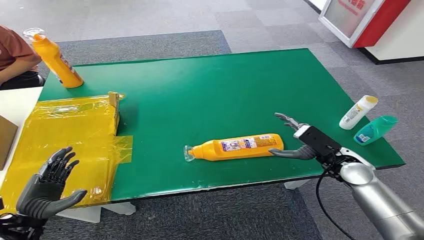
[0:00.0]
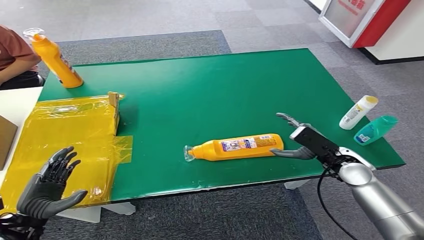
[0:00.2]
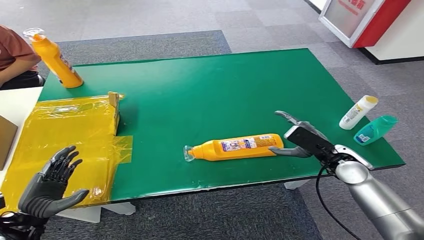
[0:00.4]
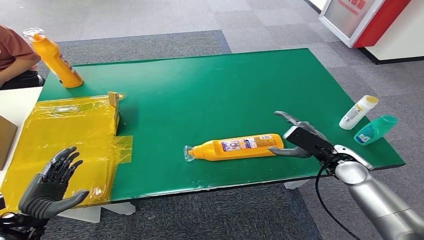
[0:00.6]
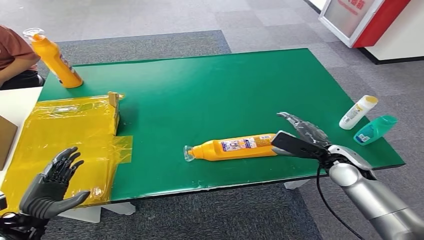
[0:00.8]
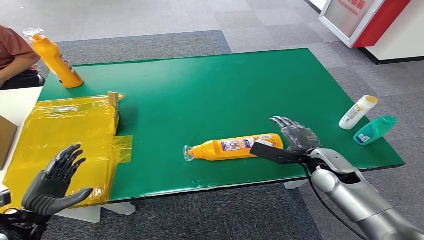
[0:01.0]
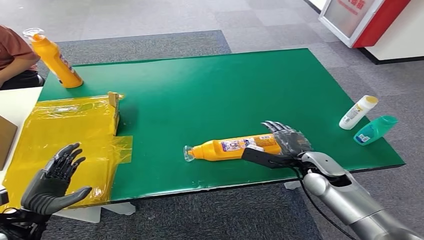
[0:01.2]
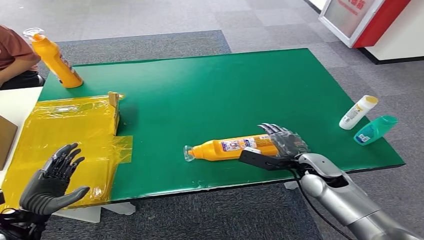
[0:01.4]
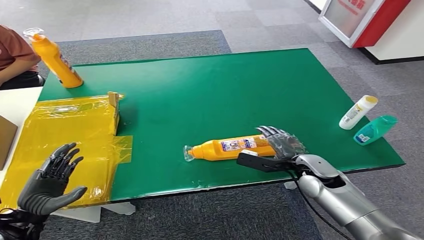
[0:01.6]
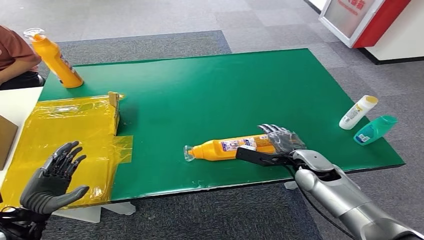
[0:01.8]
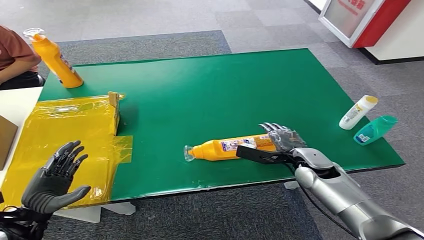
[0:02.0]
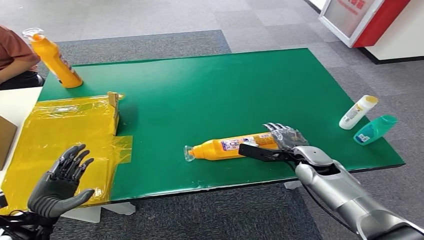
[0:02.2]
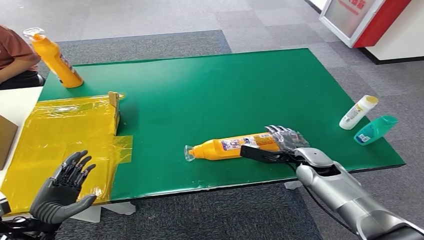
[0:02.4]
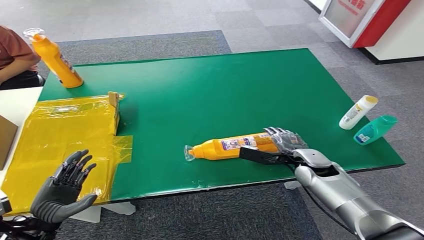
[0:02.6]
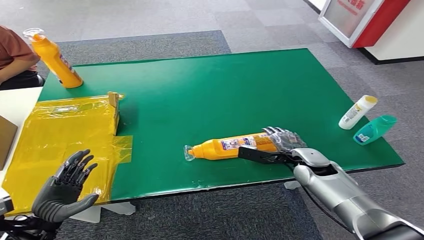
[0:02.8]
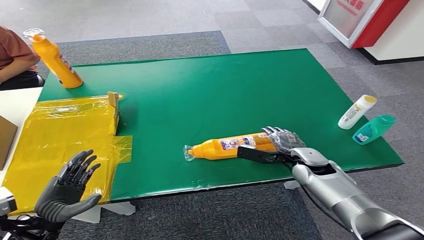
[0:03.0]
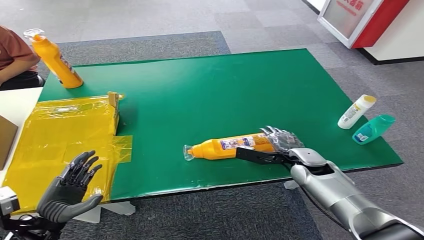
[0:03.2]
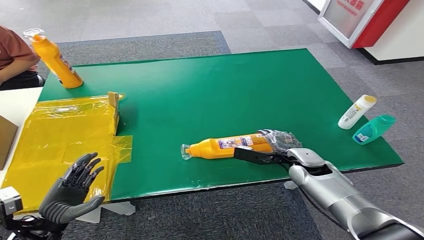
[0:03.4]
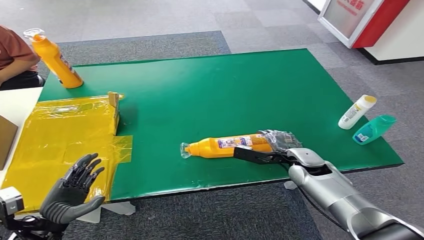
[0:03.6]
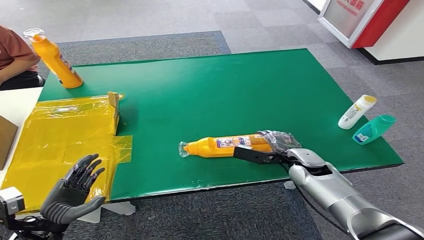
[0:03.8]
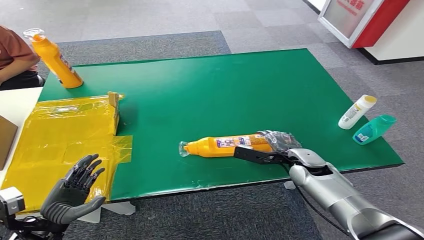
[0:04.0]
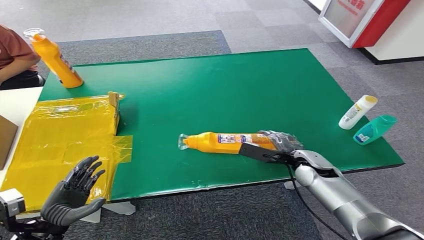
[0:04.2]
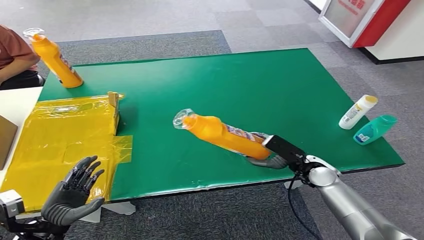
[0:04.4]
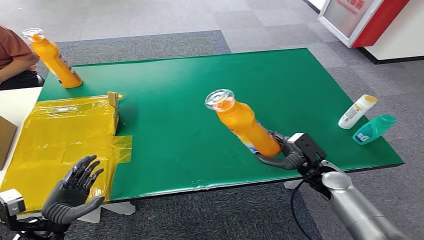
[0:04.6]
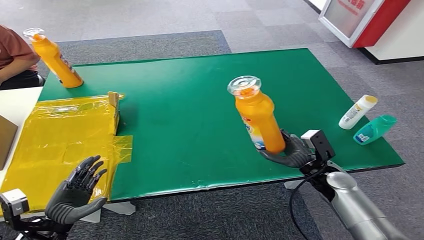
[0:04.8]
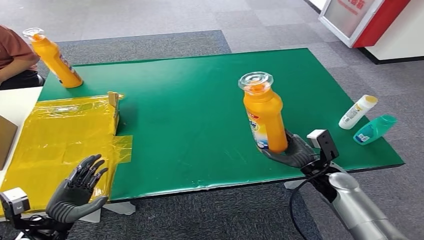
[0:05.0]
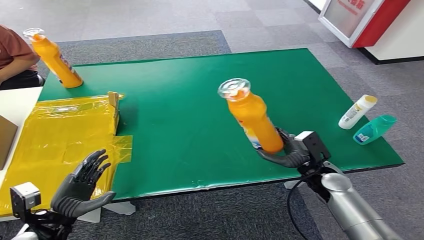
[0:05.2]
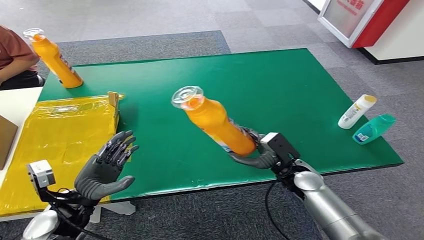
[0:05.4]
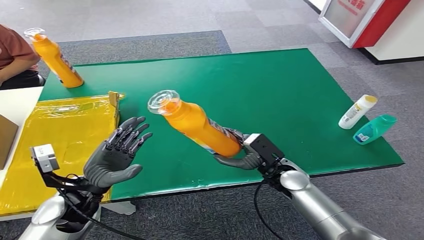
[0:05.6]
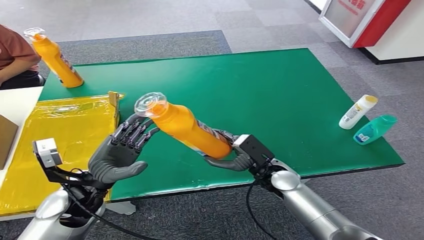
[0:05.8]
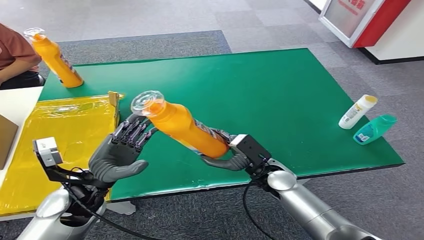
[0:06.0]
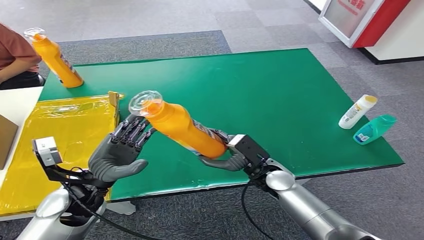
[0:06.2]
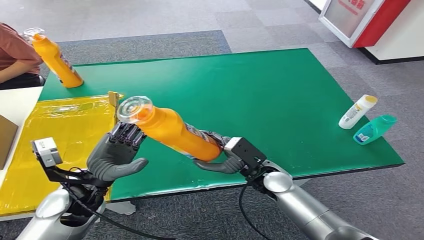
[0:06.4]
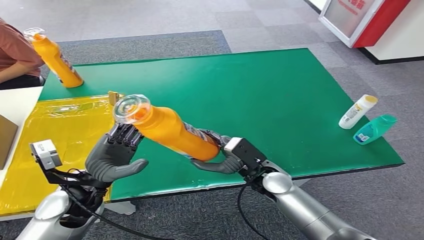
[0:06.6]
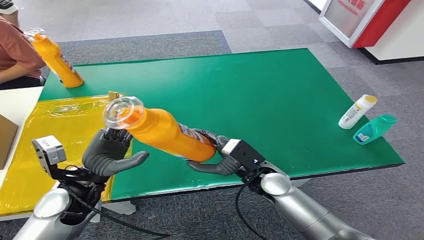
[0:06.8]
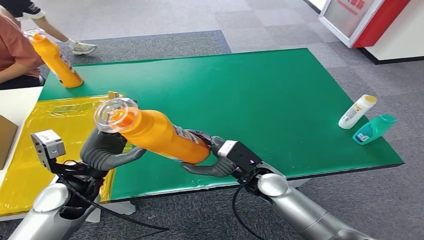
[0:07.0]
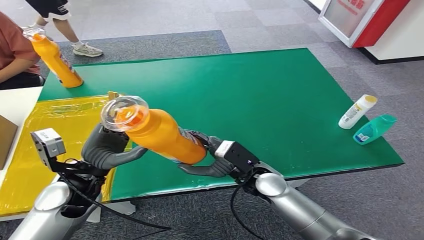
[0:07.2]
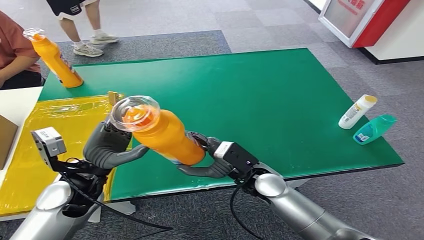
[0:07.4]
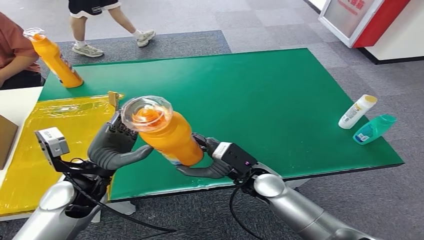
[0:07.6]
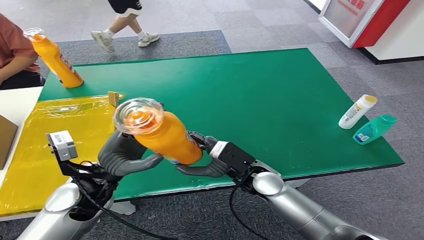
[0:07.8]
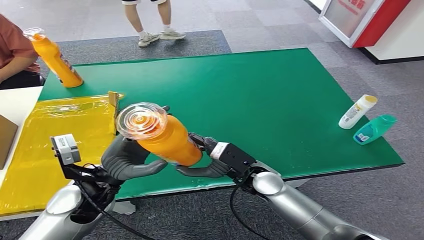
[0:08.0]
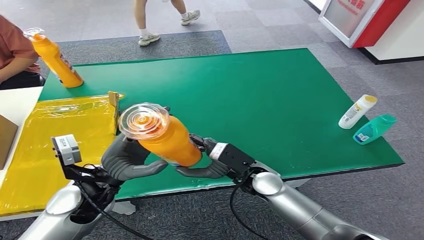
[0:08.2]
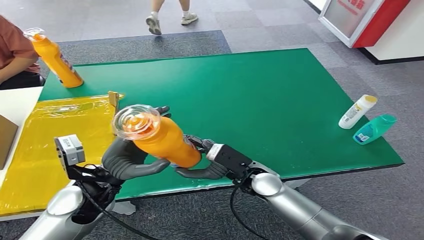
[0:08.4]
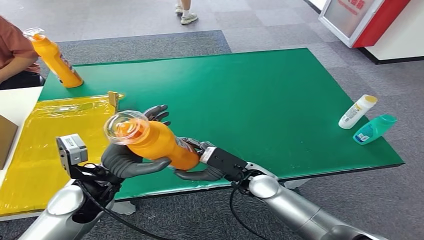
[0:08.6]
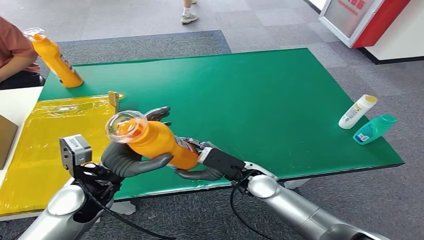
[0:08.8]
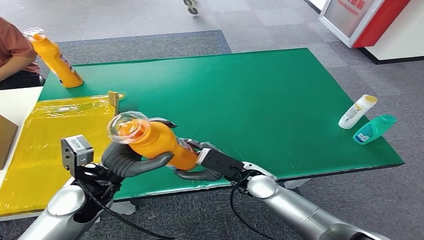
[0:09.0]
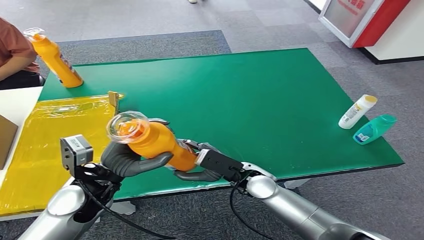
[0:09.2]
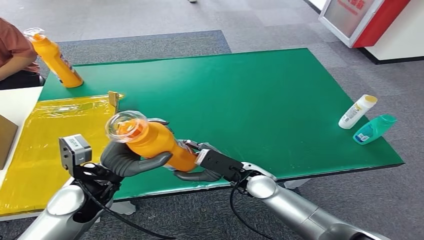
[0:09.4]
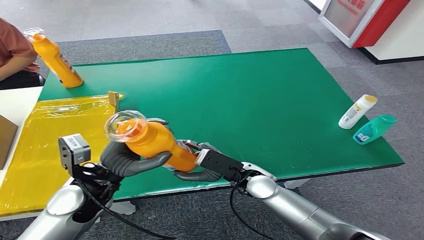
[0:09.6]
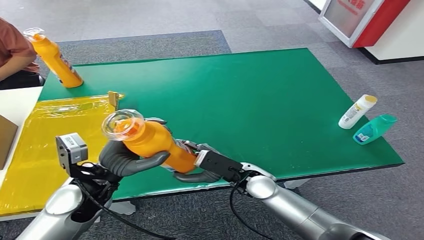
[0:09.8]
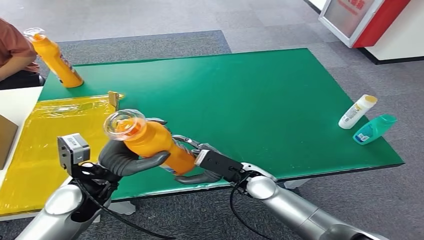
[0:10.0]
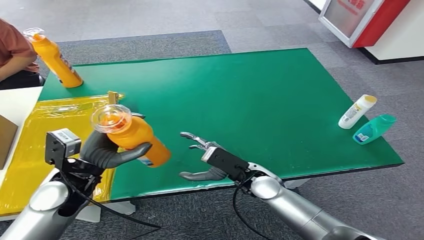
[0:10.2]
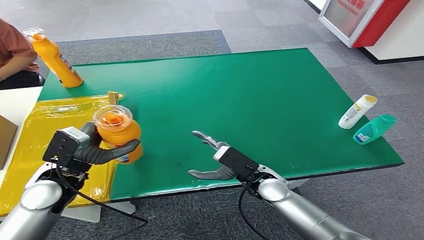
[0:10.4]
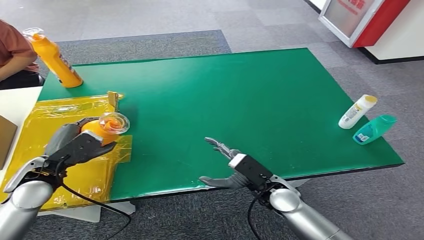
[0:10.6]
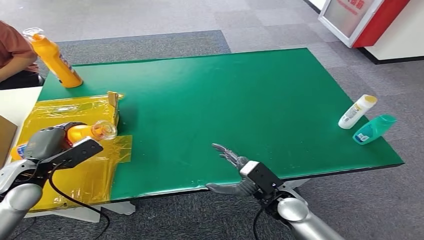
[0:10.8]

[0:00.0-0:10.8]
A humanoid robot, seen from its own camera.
Step, 0:00.0 to 0:05.4: Pick up the bottle from the table.
Step, 0:05.6 to 0:10.8: Turn the bottle to the front side.
0:01.6 to 0:03.0: The hands move only a little.
0:03.0 to 0:04.6: The right hand ends up roughly 5 cm from where it was.
0:06.2 to 0:07.8: The right hand ends up roughly 5 cm from where it was.
0:07.8 to 0:09.2: The hands move only a little.
0:09.2 to 0:10.8: The left hand moves to the left, about 15 cm, while the right hand goes roughly 10 cm backward and to the right.
